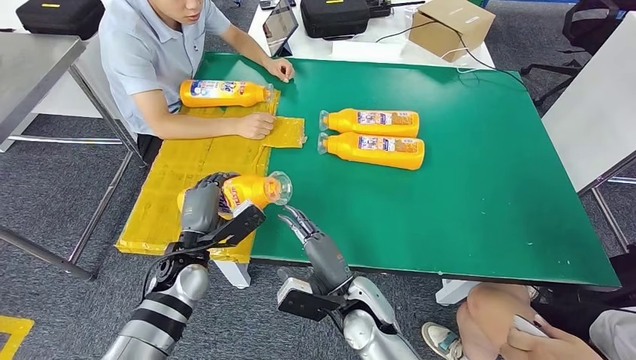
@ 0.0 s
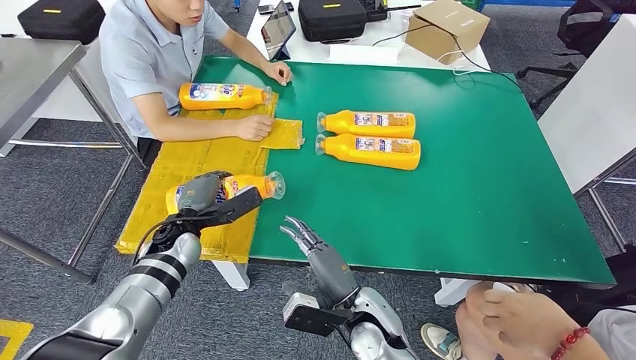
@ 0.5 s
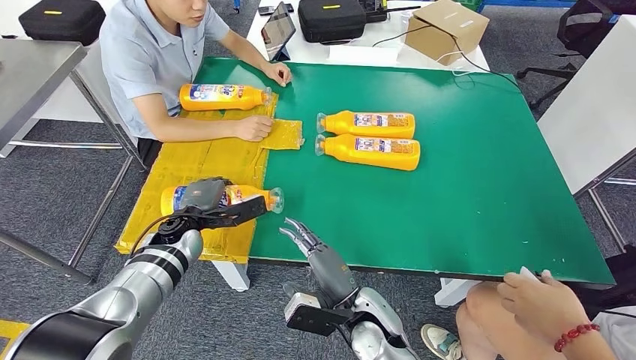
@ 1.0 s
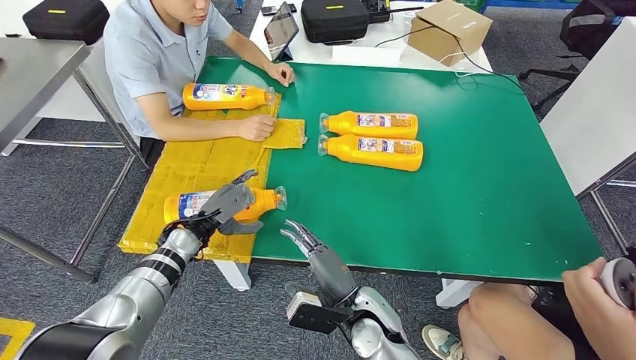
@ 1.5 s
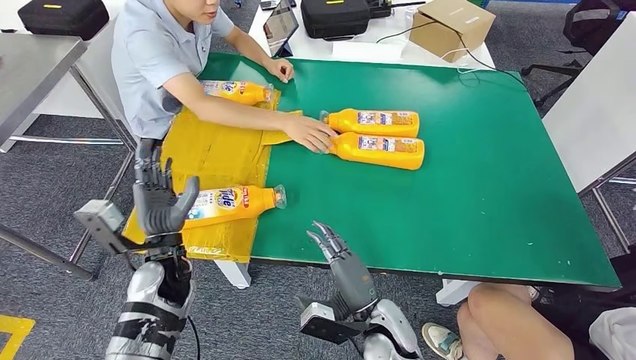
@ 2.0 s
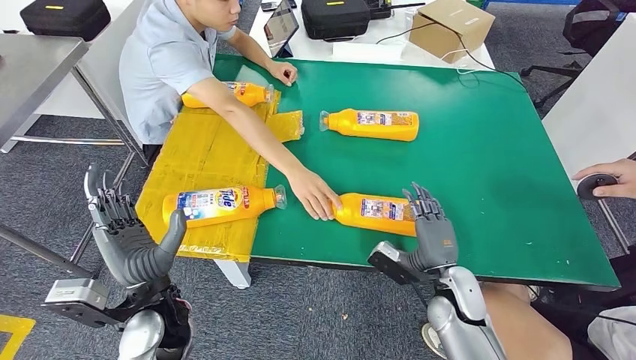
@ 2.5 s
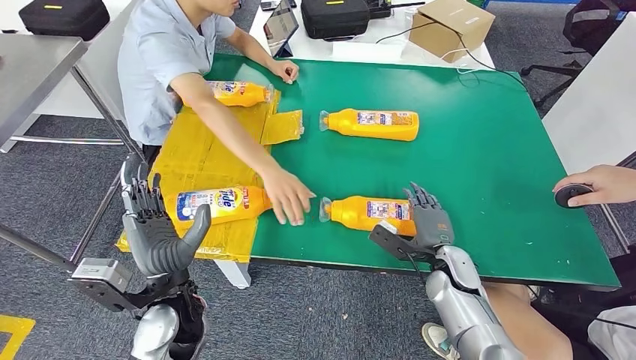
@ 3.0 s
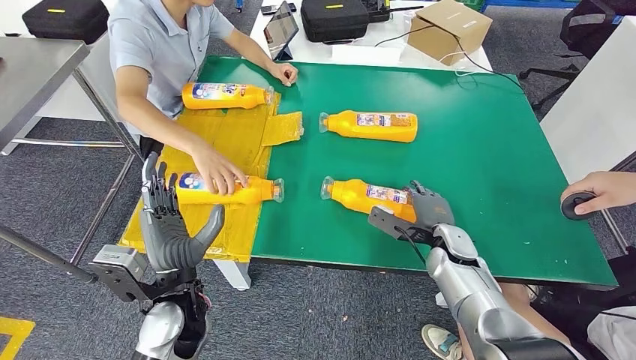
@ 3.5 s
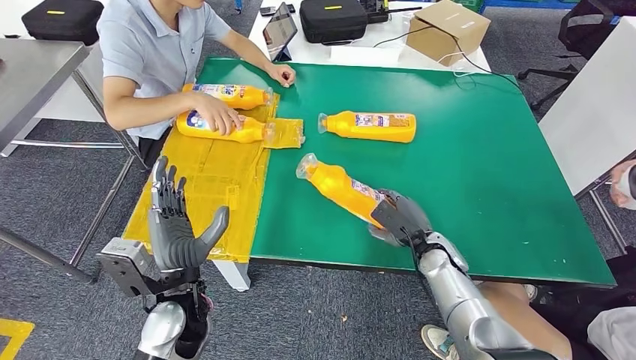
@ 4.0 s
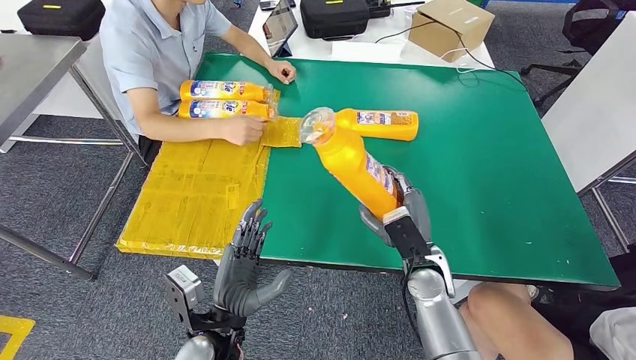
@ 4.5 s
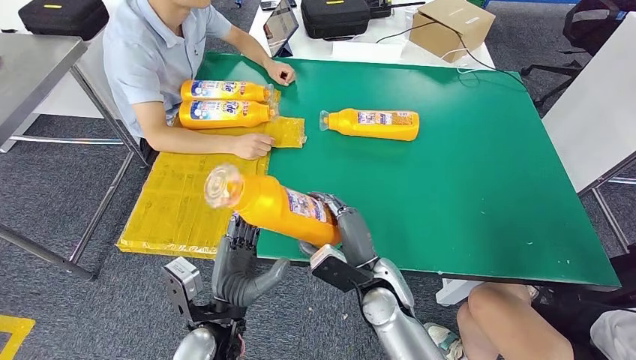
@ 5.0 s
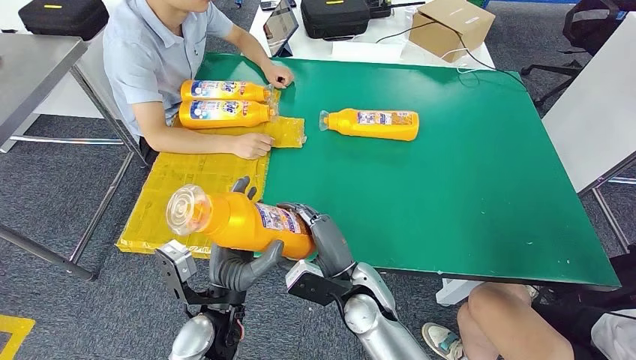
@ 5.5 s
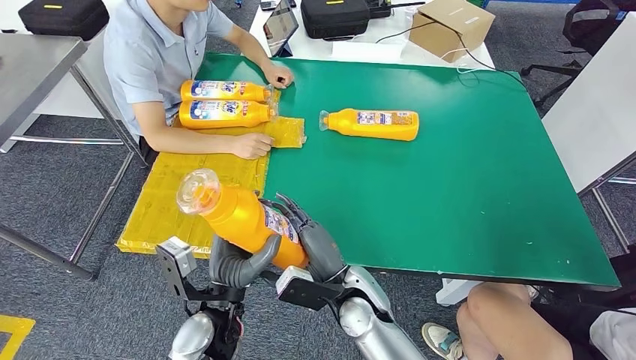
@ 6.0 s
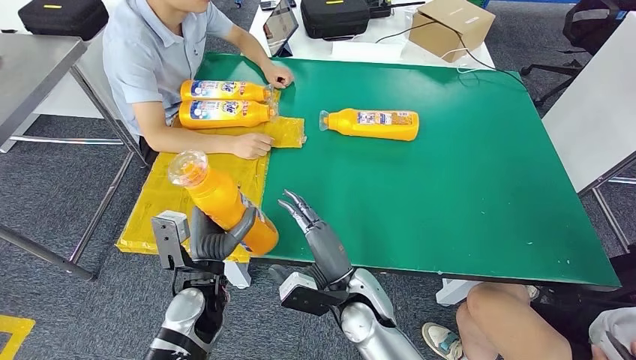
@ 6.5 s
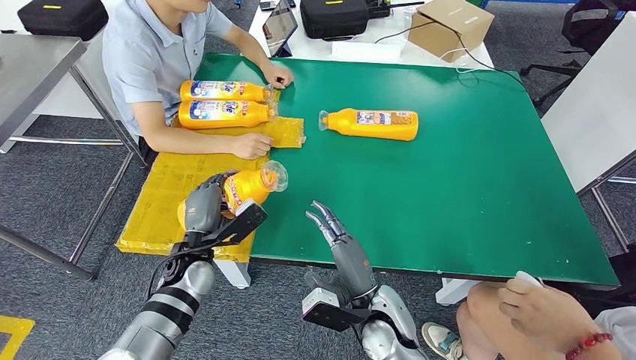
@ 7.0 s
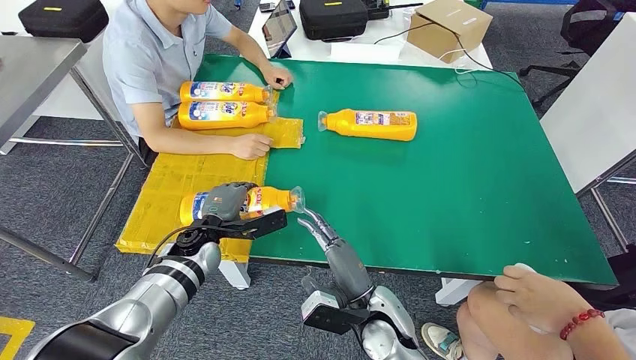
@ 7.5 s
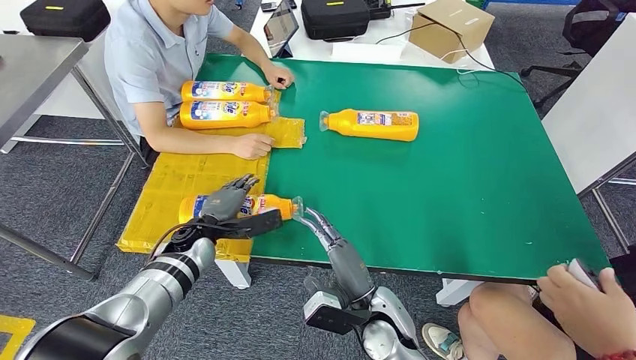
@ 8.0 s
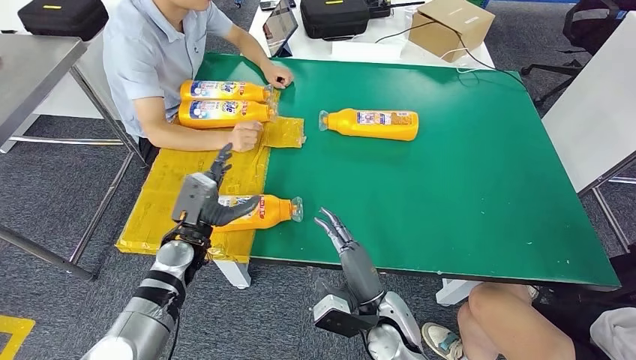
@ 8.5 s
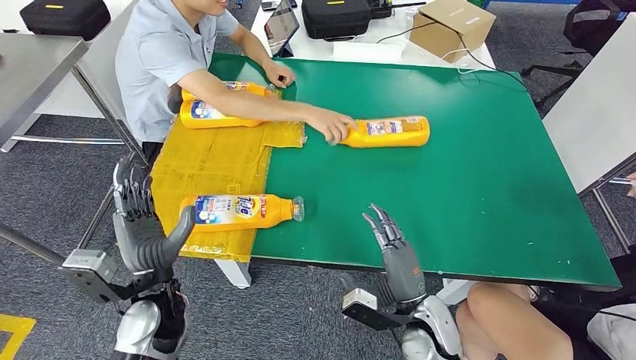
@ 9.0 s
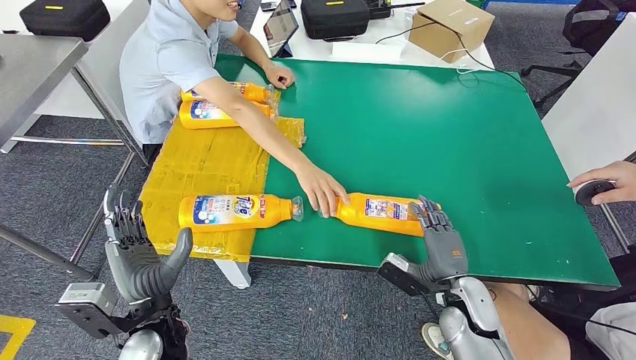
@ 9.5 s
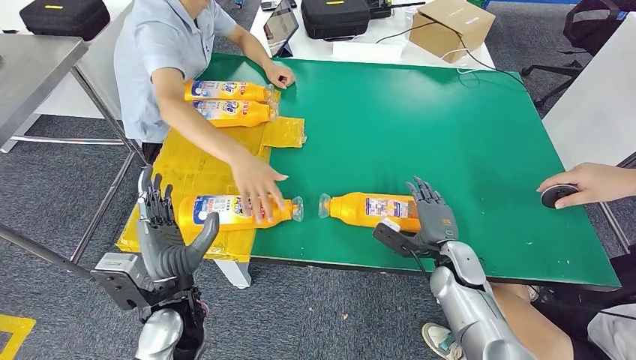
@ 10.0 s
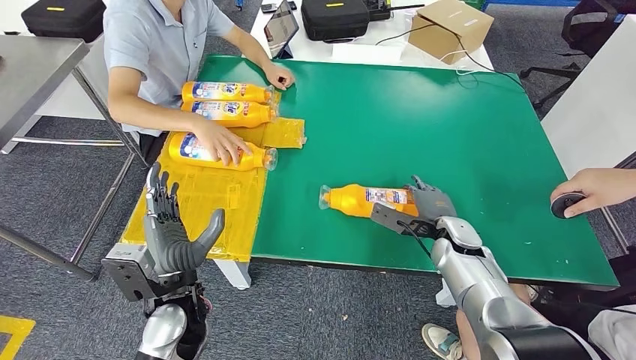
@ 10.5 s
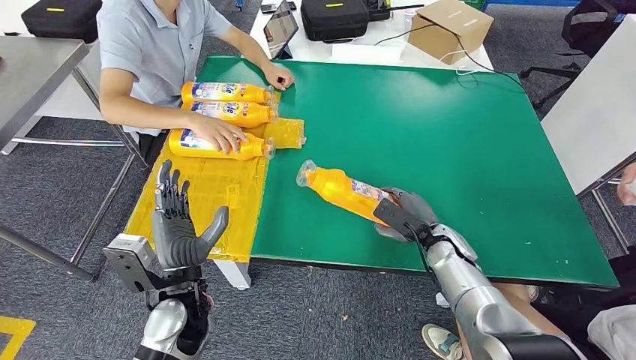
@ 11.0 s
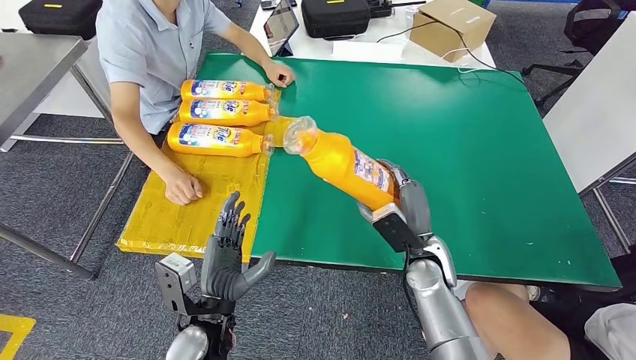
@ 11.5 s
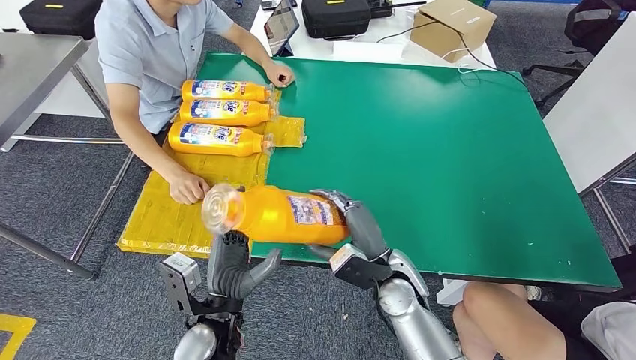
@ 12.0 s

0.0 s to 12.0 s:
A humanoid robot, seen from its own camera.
Step, 0.0 to 2.0 s: Flip the bottle to face forward.
Step, 3.5 to 6.0 s: Pick up the bottle from the table.
Step, 6.5 to 8.5 s: Flip the bottle to face forward.
0.0 to 2.0 s: The right hand changes place by approximately 5 cm. The left hand travels forward and back again, some 5 cm each way.
6.0 to 8.0 s: The right hand changes place by approximately 5 cm. The left hand goes some 20 cm forward and to the left.

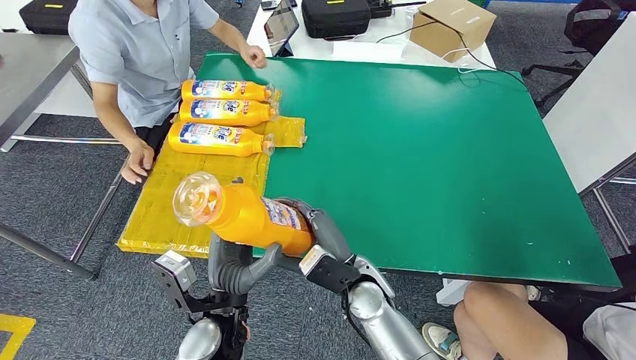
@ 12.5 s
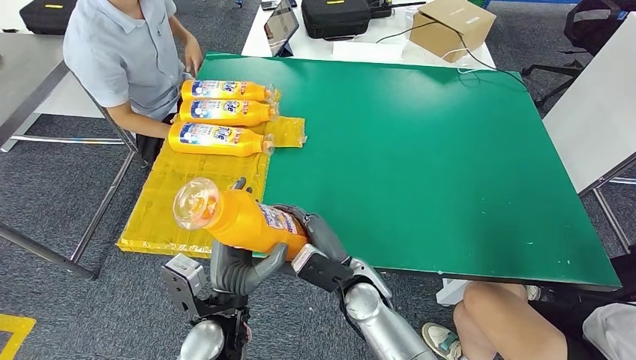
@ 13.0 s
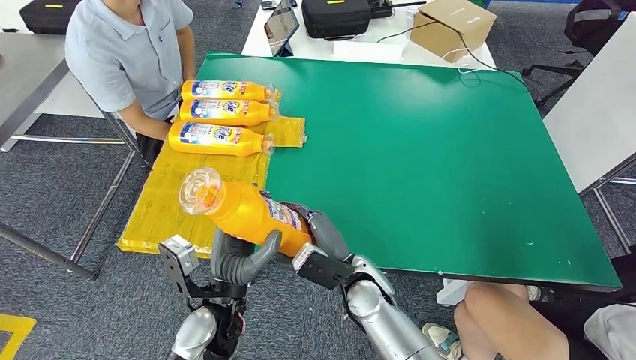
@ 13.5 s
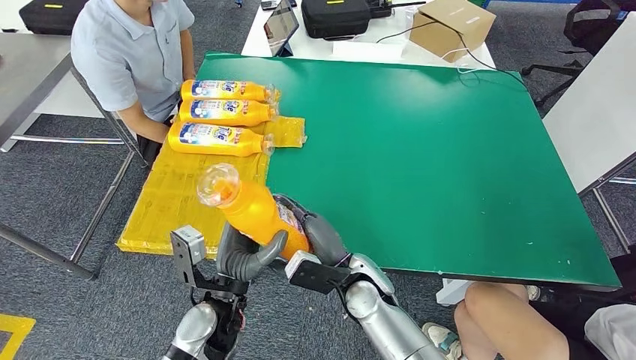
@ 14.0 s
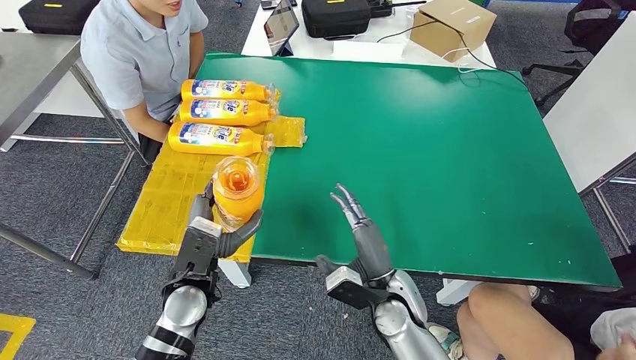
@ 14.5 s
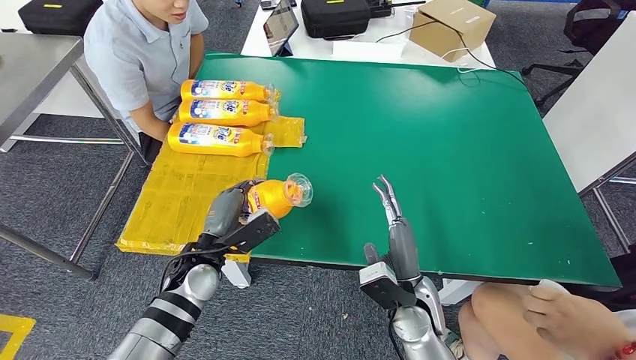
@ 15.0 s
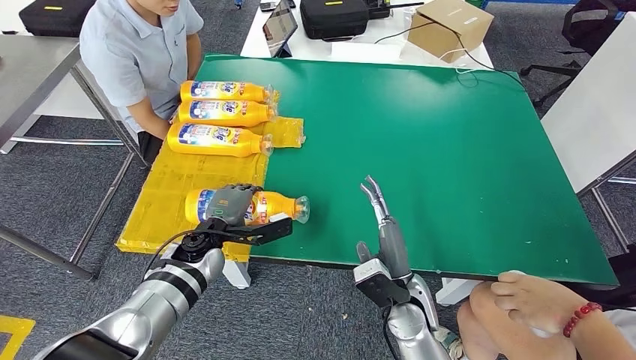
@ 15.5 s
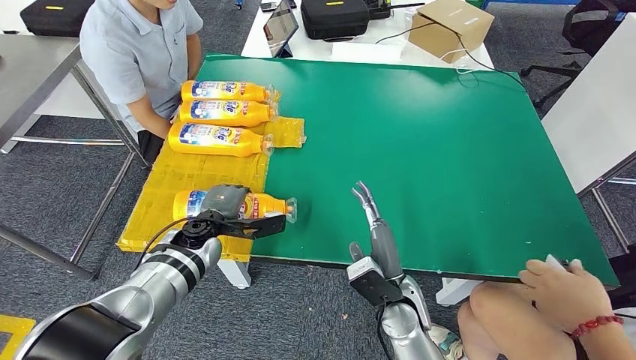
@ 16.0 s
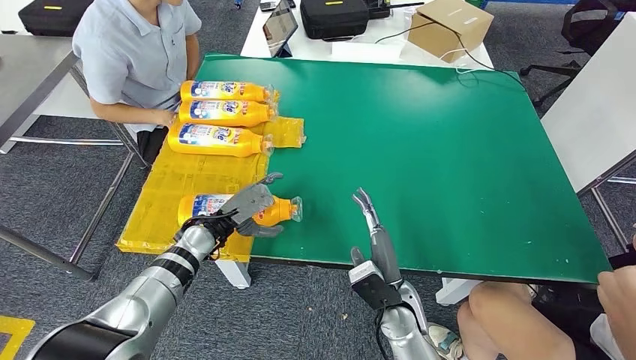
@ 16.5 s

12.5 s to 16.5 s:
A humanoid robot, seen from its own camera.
Step, 13.5 to 16.5 s: Flip the bottle to face forward.
12.5 to 14.5 s: The left hand shifts roughly 10 cm to the left and forward. Meanwhile the right hand travels to the right by some 5 cm.
14.5 to 16.5 s: The left hand goes roughly 10 cm forward.
